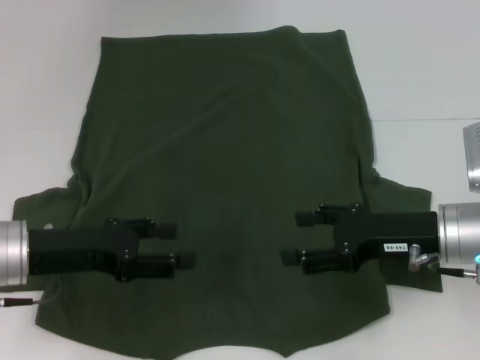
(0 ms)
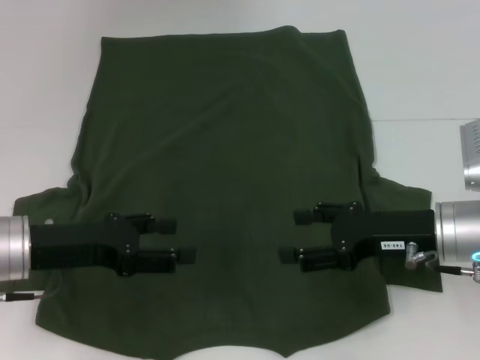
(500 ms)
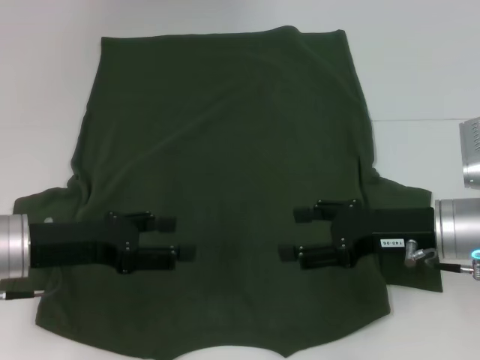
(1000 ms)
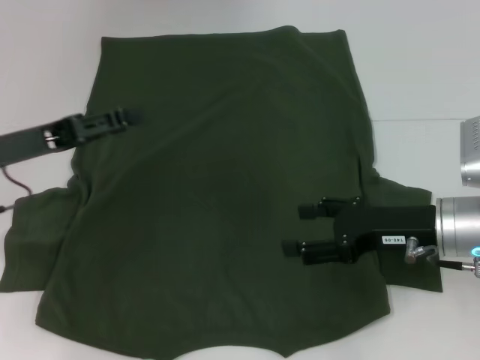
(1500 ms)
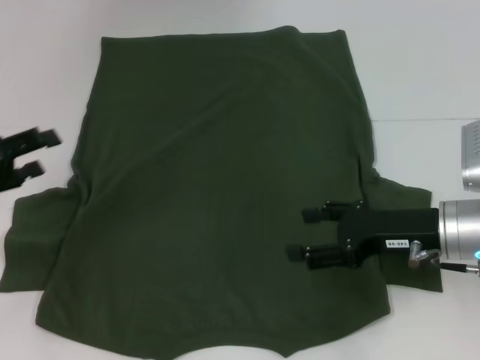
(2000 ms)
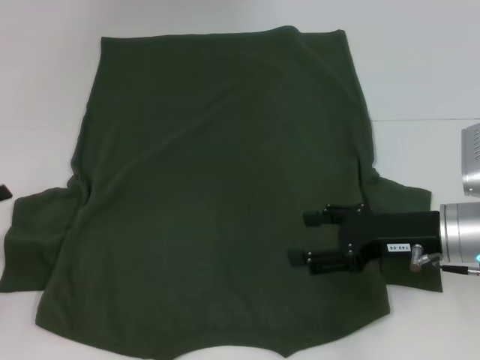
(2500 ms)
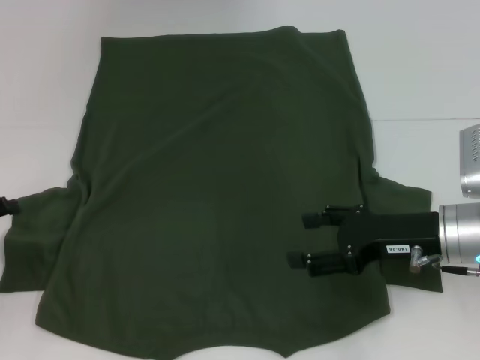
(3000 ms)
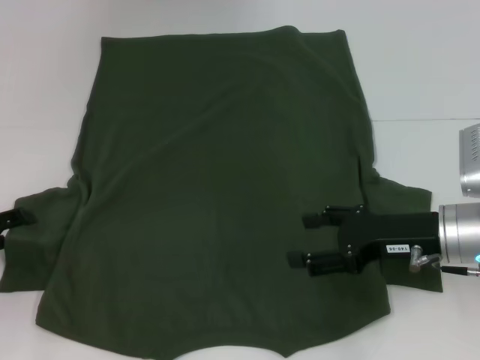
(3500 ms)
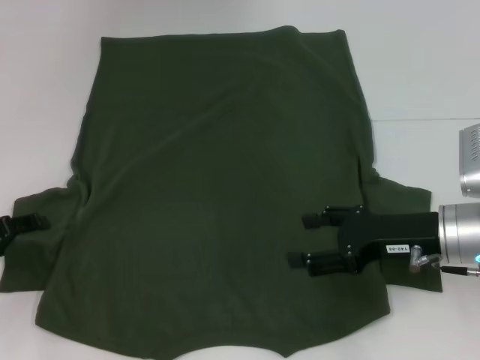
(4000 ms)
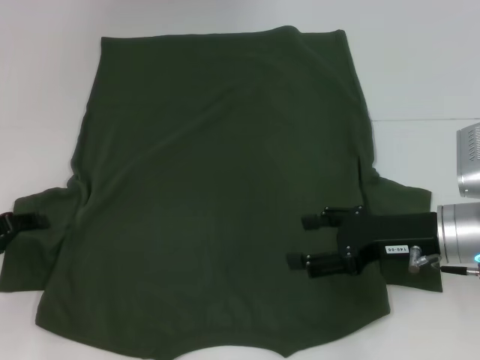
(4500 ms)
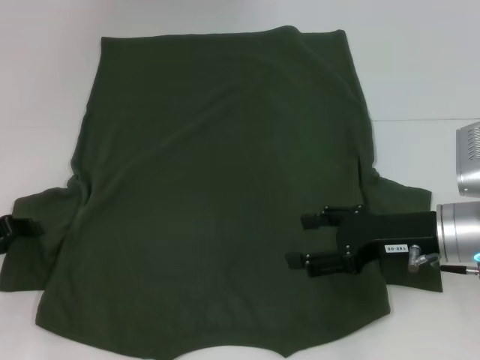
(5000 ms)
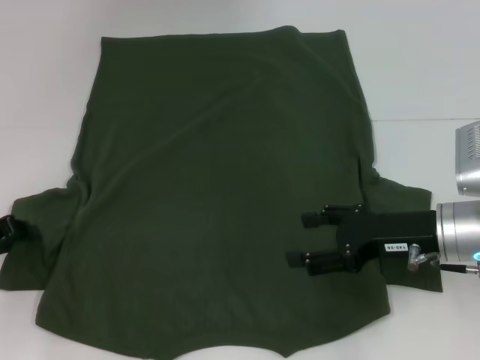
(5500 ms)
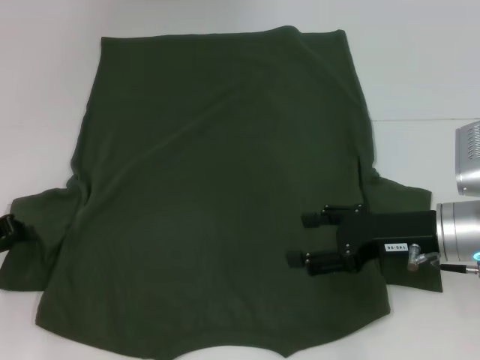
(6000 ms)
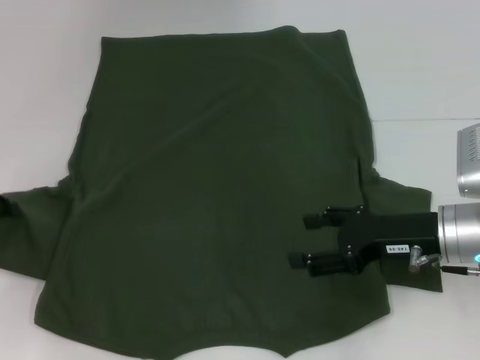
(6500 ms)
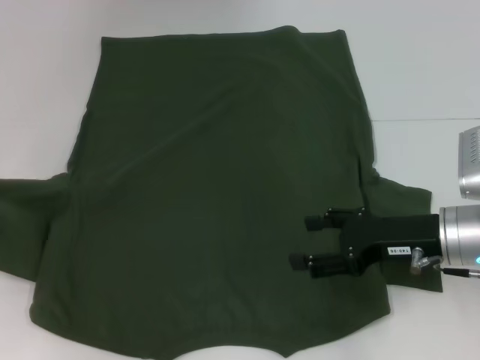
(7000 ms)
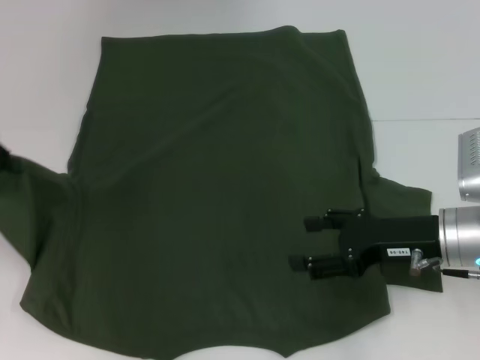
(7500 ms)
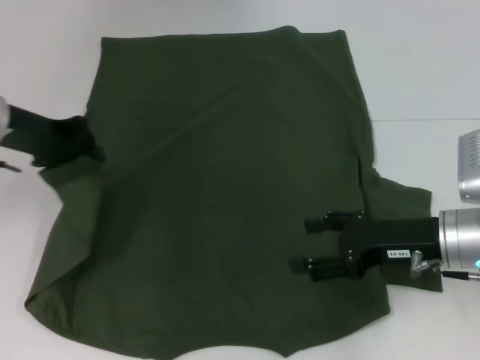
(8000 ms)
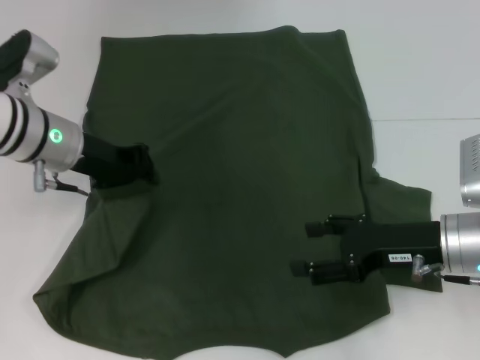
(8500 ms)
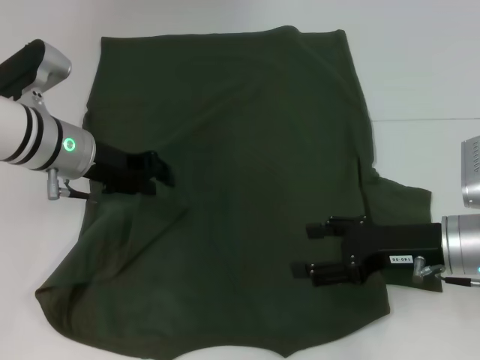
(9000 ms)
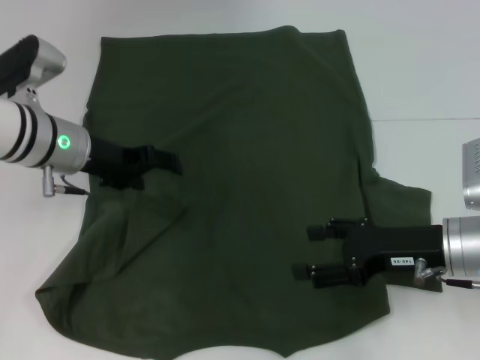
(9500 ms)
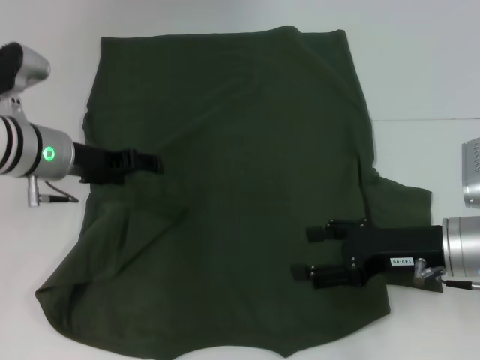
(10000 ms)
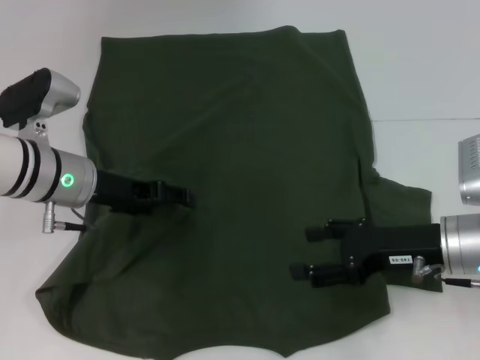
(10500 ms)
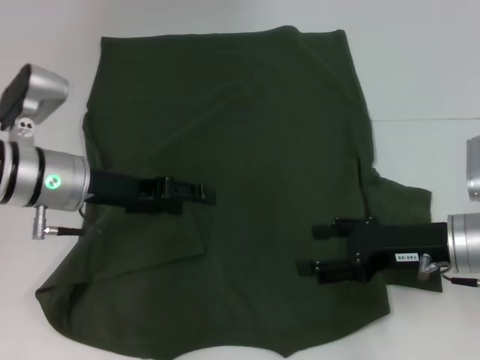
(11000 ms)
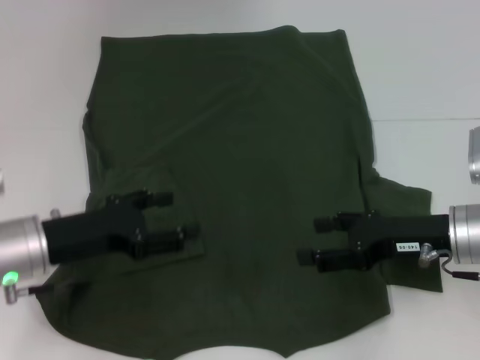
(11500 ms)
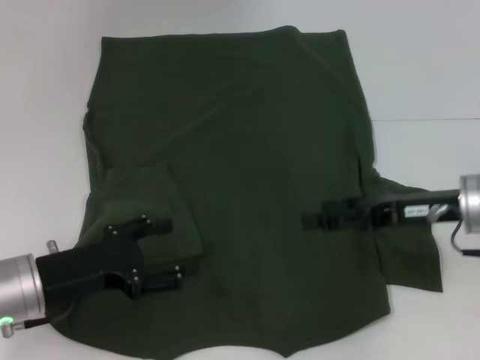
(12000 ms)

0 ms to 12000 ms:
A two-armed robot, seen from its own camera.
Step, 0 ms to 12000 ms: Fold the bottom left sleeve with your left hand.
0 ms to 2000 ms: The left gripper goes approximately 10 cm to the left.
2000 ms to 4000 ms: The left gripper heads downward, covering some 5 cm.
6000 ms to 8000 ms: The left gripper shifts approximately 15 cm upward, forward and to the right.
8000 ms to 10000 ms: The left gripper is displaced downward by approximately 5 cm, and opens.
10000 ms to 12000 ms: The left gripper heads backward and downward, covering about 15 cm.

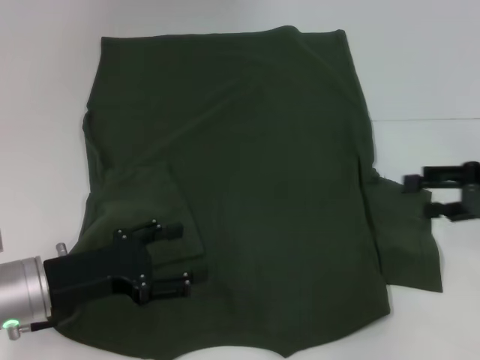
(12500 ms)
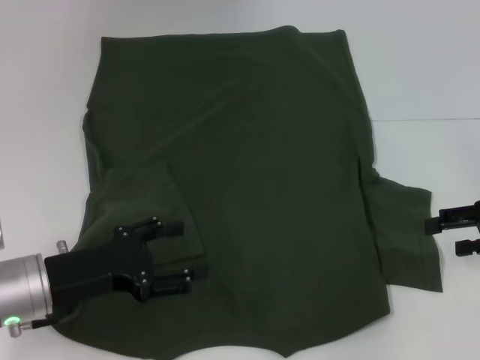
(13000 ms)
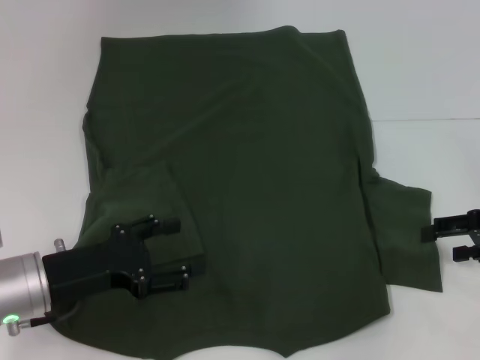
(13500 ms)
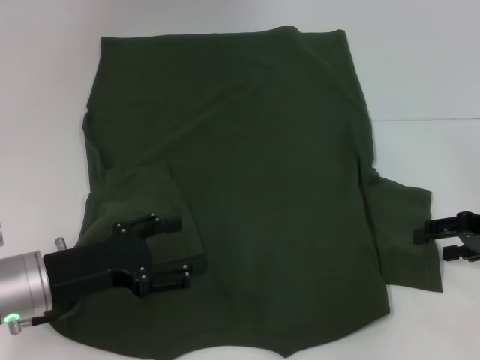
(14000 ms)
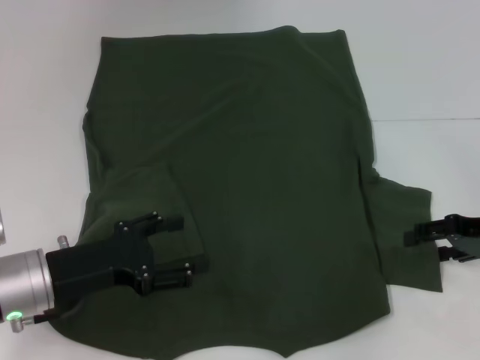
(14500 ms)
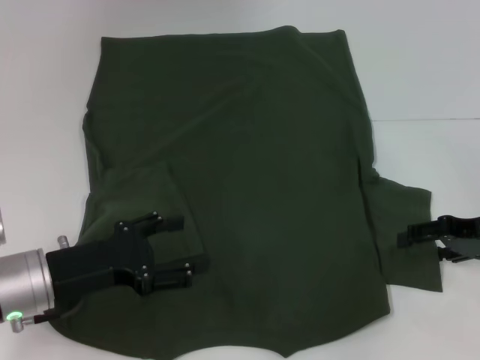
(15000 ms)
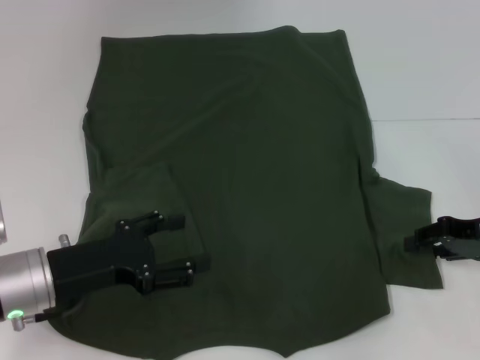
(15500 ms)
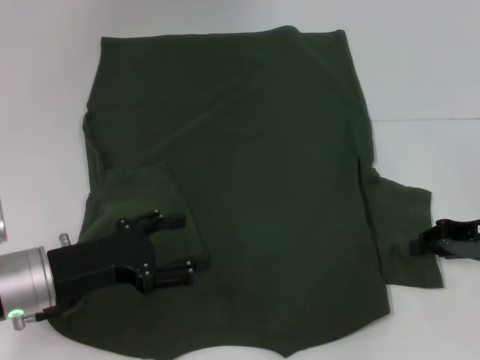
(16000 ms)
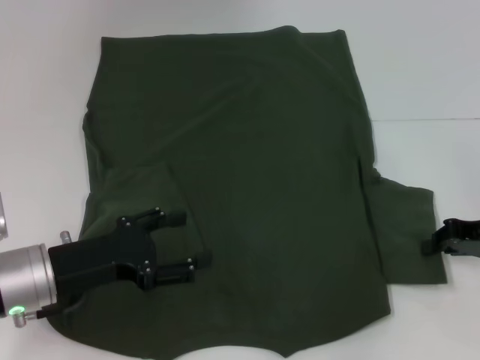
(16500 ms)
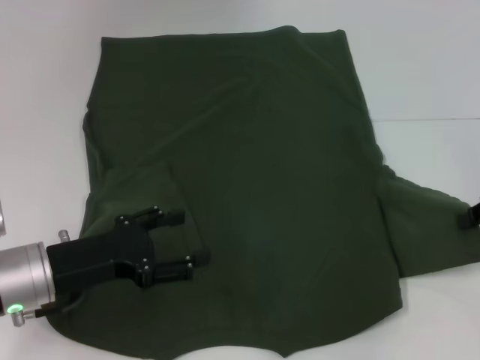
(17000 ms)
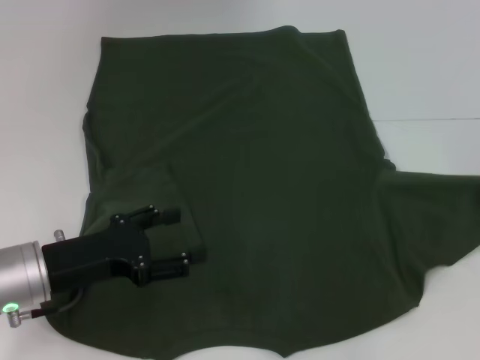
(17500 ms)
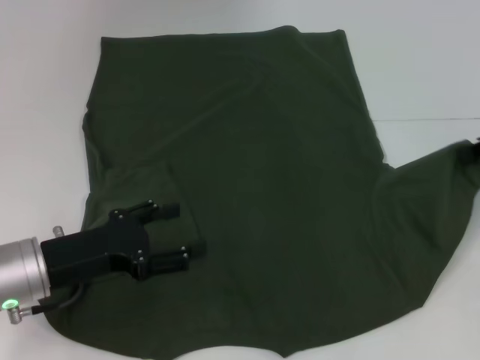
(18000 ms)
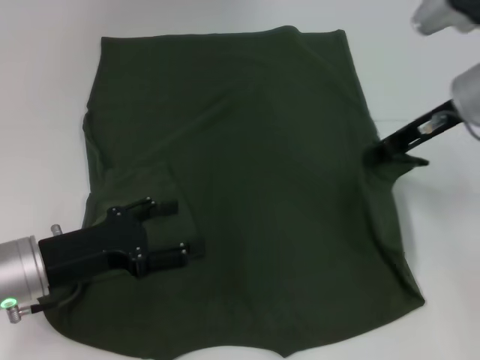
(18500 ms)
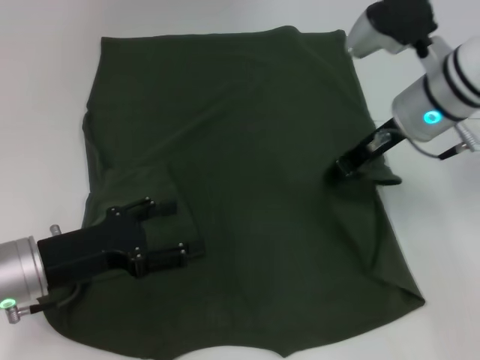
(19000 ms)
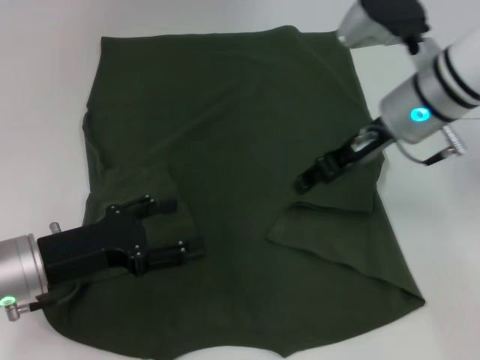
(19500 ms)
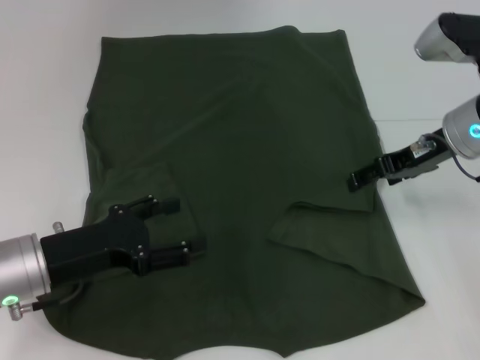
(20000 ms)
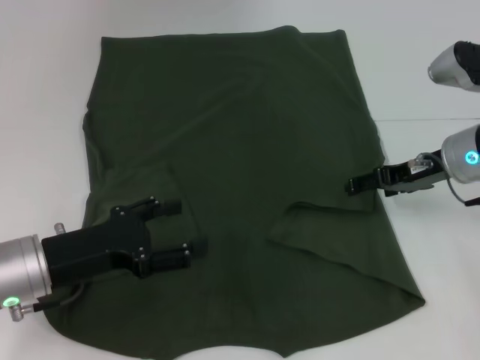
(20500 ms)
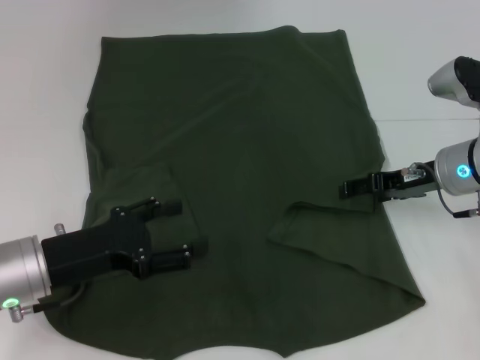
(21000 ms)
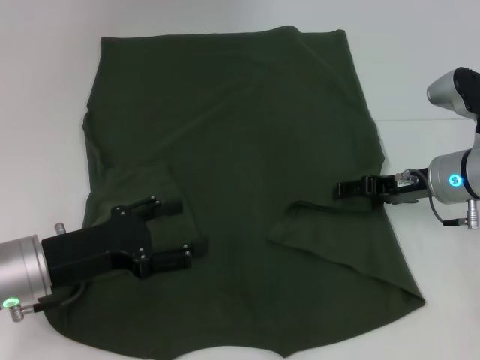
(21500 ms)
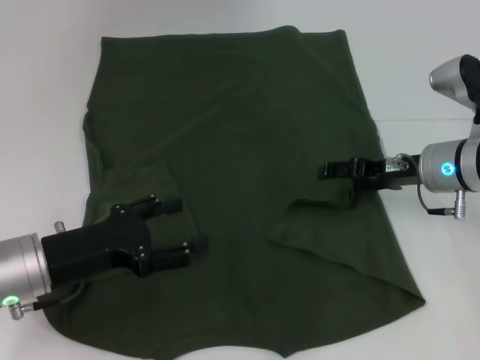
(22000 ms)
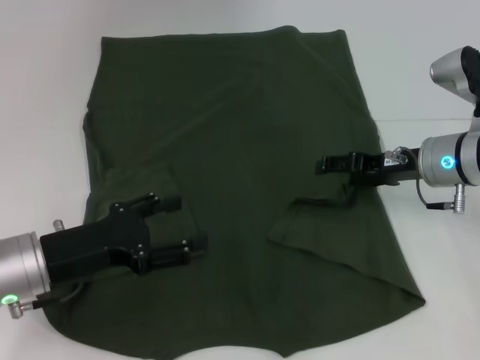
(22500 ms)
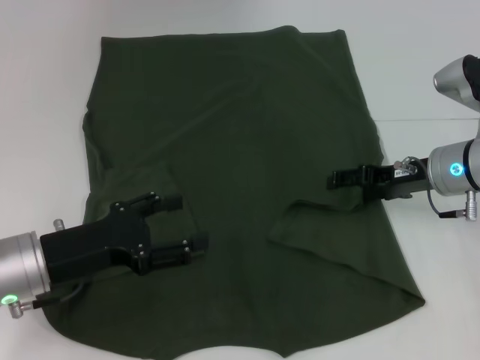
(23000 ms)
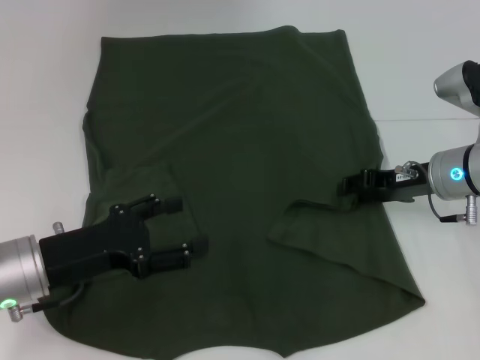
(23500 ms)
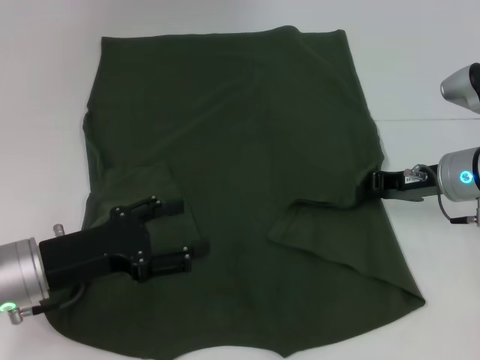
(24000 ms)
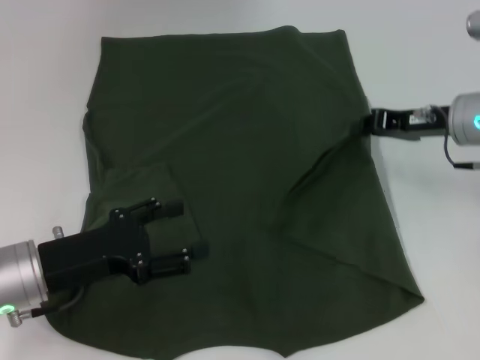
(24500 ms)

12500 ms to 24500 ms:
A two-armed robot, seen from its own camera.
12500 ms to 14500 ms: The grippers move only a little.
14500 ms to 16500 ms: The right gripper closes up.
16500 ms to 18500 ms: The right gripper heads upward, to the left and forward, covering approximately 15 cm.
18500 ms to 20500 ms: The right gripper heads downward, covering roughly 10 cm, travels to the left and back again, roughly 5 cm each way, and opens.
20500 ms to 22500 ms: The grippers move only a little.
22500 ms to 24500 ms: The right gripper closes.

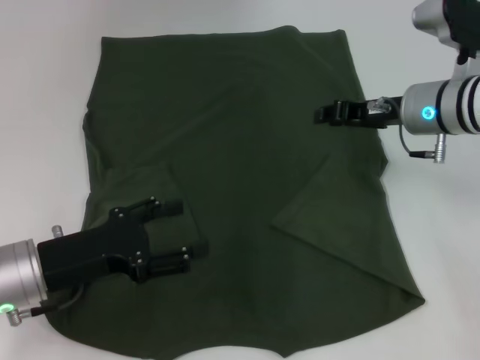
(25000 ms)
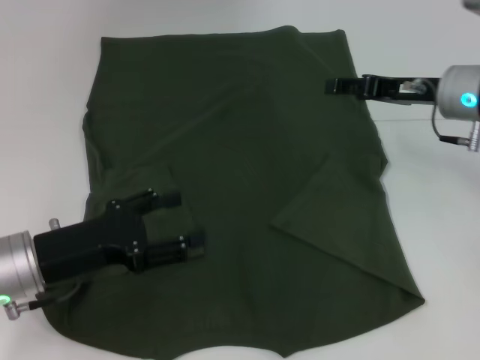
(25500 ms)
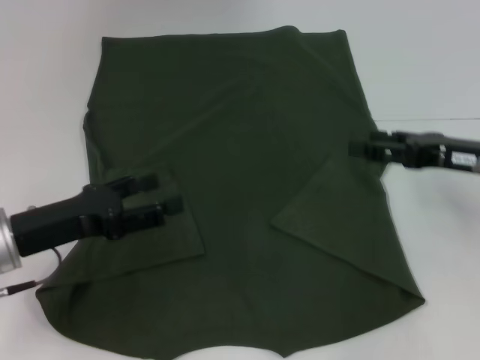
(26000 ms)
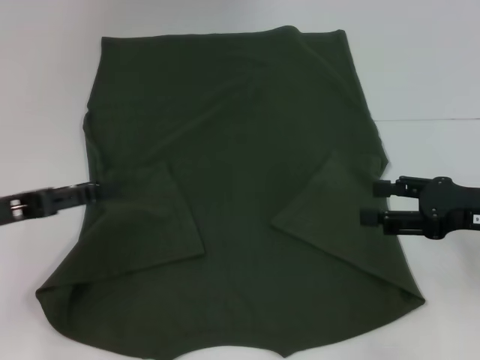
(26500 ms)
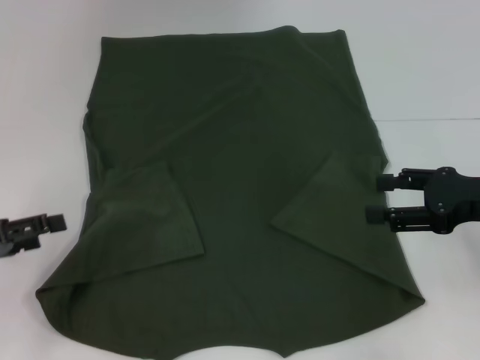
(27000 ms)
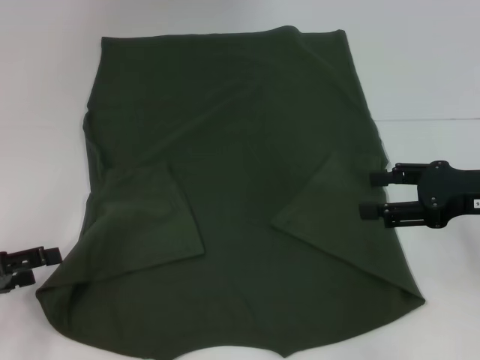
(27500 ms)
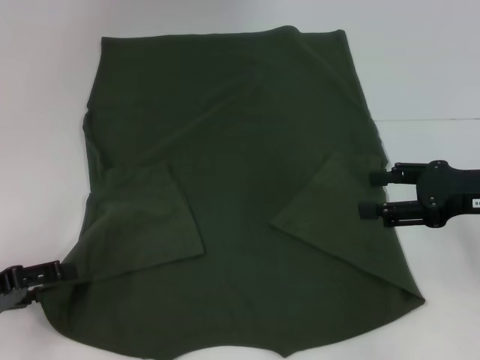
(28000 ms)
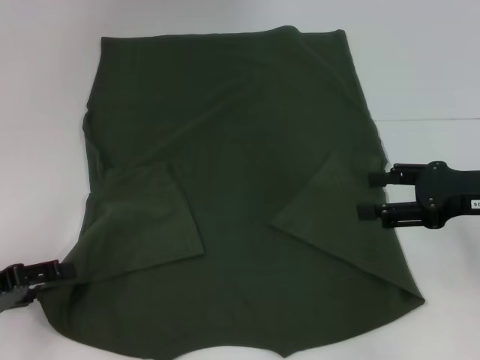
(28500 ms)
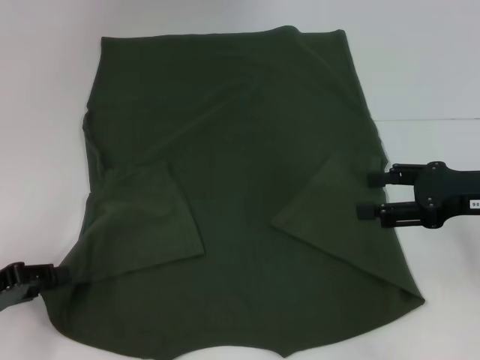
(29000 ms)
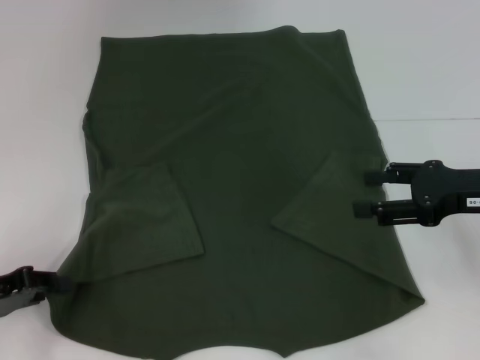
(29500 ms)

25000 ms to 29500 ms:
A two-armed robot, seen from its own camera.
Step, 26000 ms to 29500 ms: Grab the bottom left corner with your left hand.
25000 ms to 27000 ms: The right gripper travels backward and to the right by roughly 15 cm, and opens up; the left gripper travels to the left by approximately 10 cm.
27000 ms to 29500 ms: The left gripper closes.
